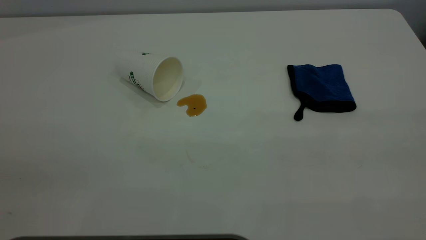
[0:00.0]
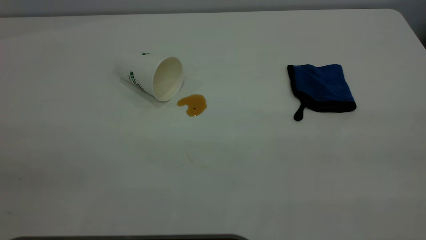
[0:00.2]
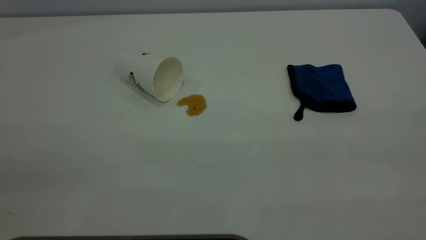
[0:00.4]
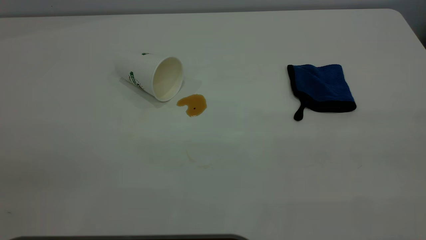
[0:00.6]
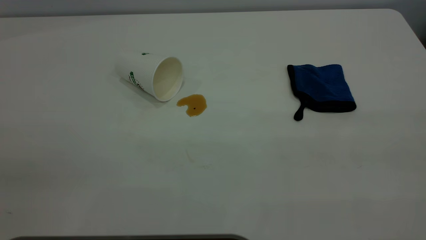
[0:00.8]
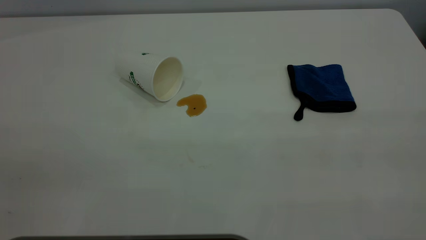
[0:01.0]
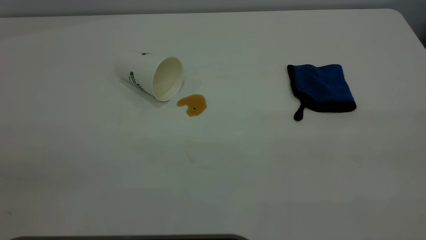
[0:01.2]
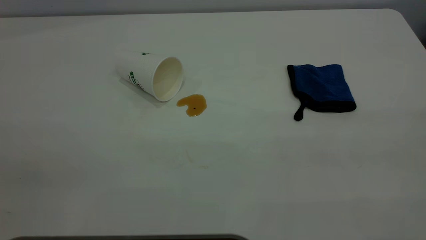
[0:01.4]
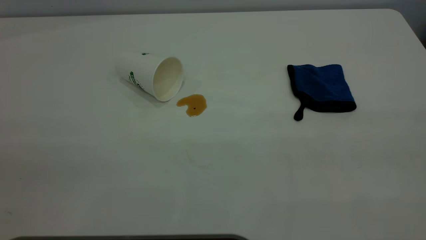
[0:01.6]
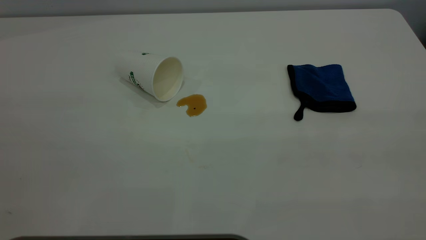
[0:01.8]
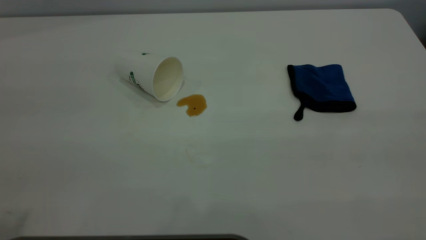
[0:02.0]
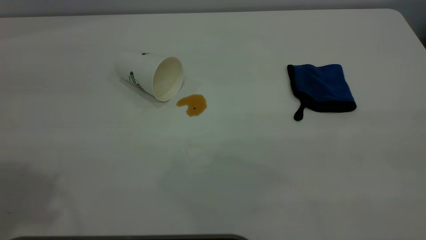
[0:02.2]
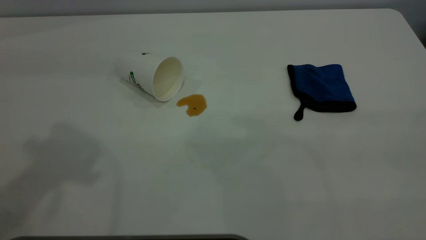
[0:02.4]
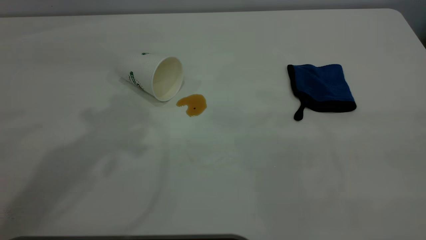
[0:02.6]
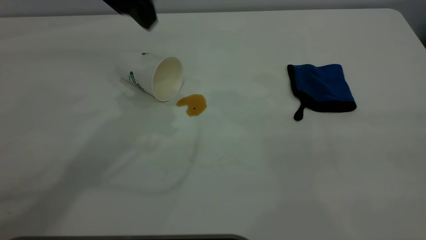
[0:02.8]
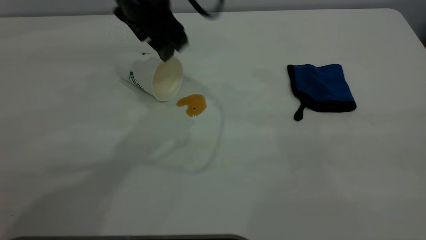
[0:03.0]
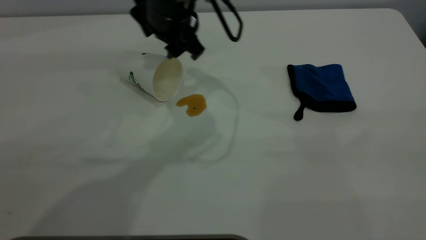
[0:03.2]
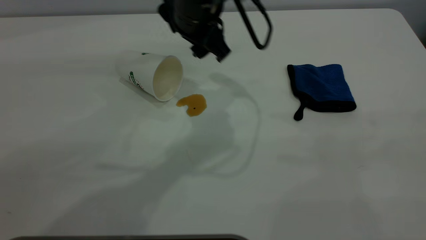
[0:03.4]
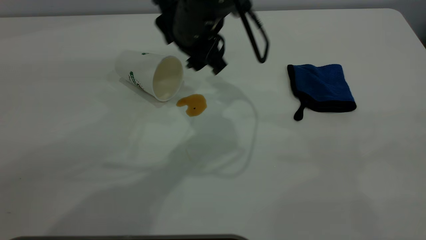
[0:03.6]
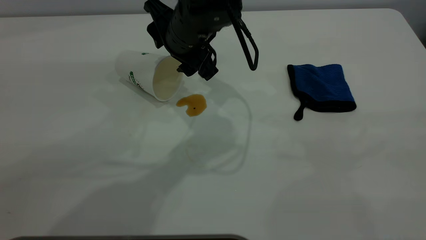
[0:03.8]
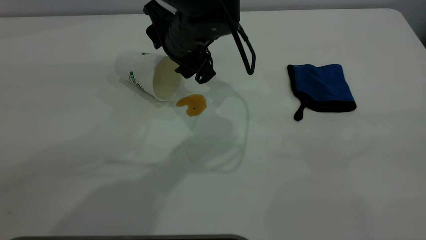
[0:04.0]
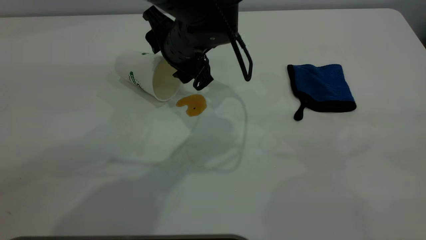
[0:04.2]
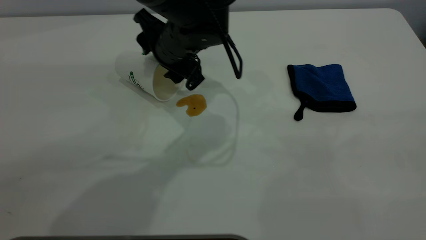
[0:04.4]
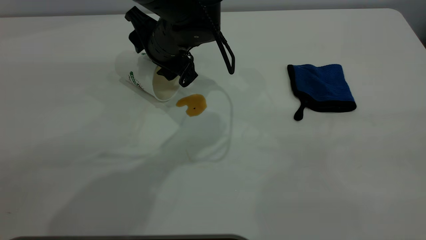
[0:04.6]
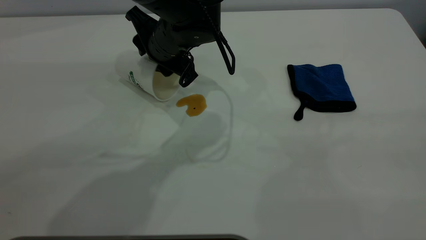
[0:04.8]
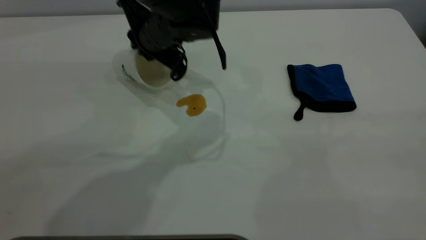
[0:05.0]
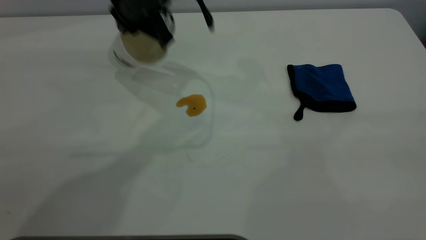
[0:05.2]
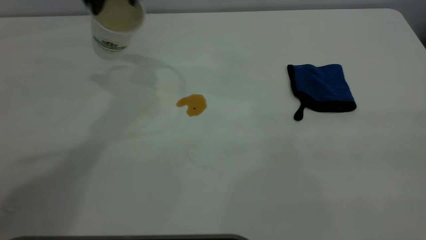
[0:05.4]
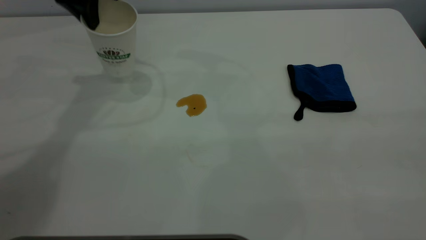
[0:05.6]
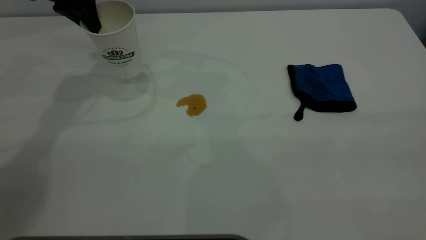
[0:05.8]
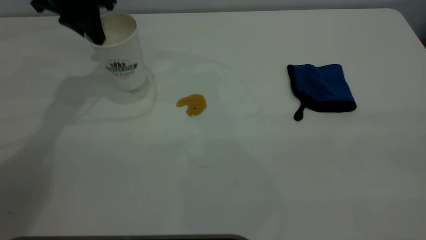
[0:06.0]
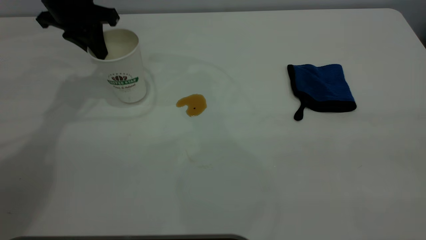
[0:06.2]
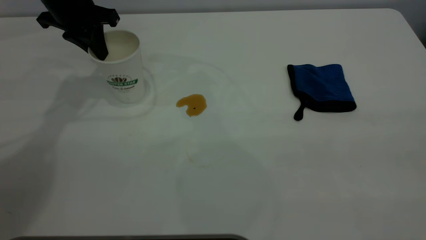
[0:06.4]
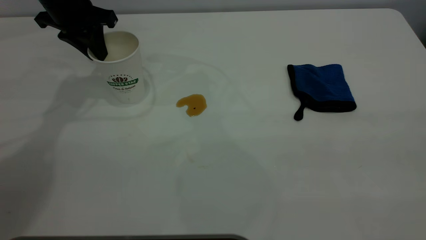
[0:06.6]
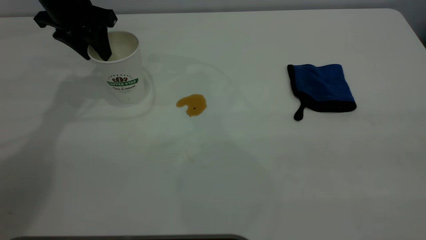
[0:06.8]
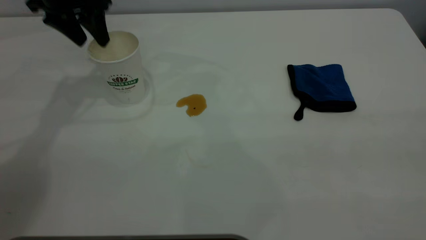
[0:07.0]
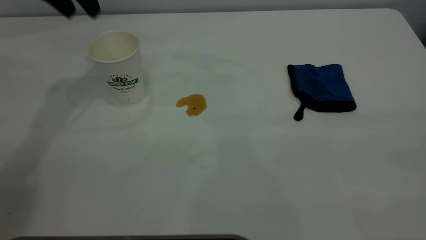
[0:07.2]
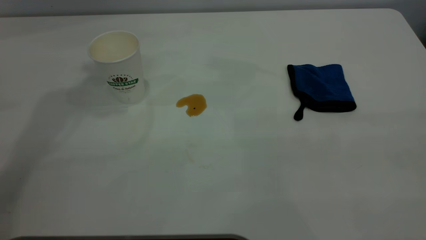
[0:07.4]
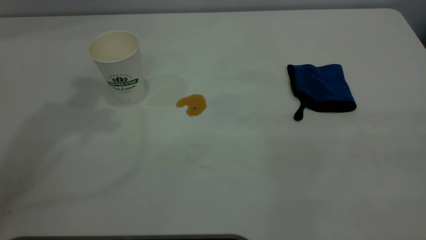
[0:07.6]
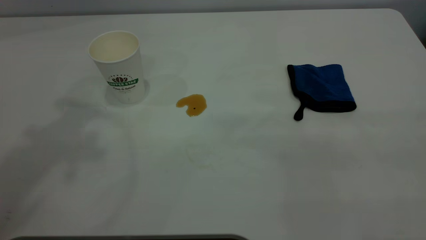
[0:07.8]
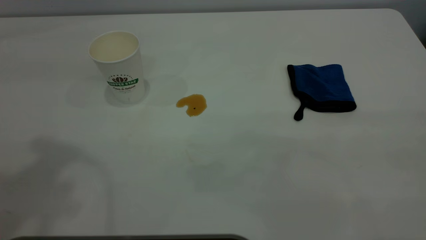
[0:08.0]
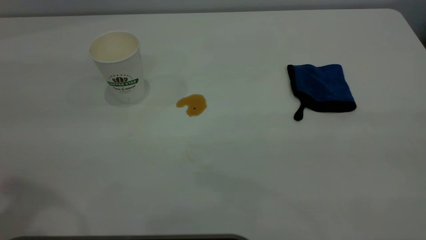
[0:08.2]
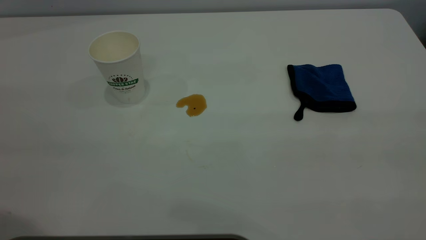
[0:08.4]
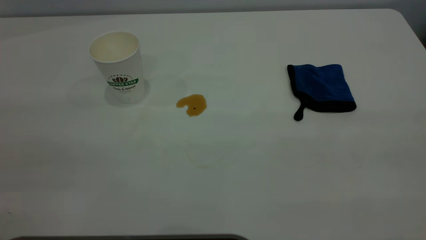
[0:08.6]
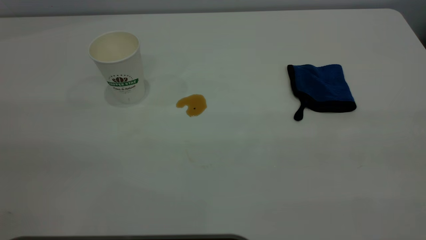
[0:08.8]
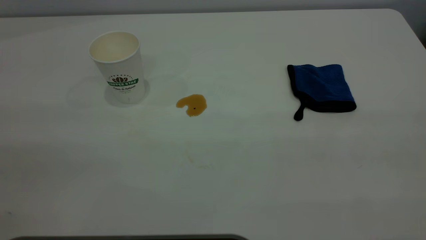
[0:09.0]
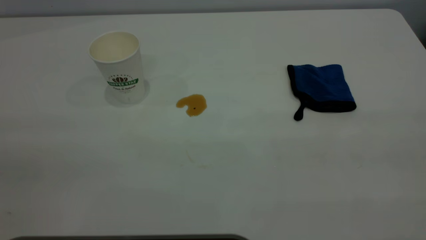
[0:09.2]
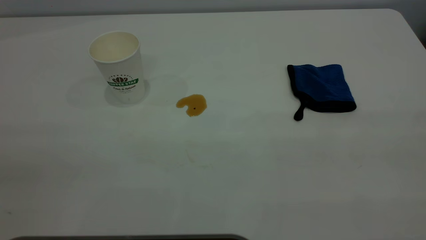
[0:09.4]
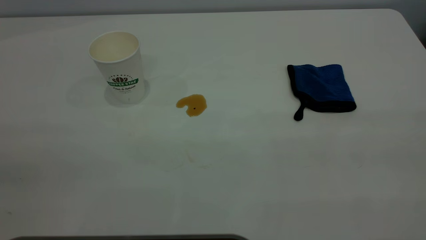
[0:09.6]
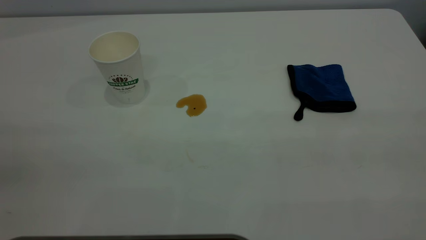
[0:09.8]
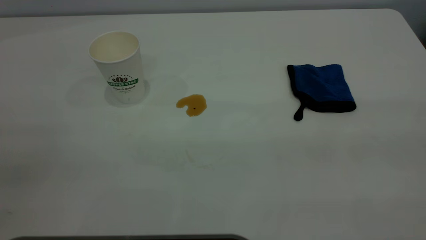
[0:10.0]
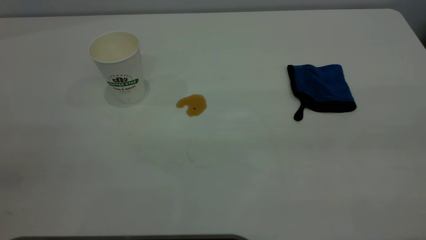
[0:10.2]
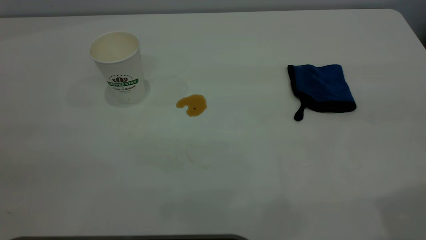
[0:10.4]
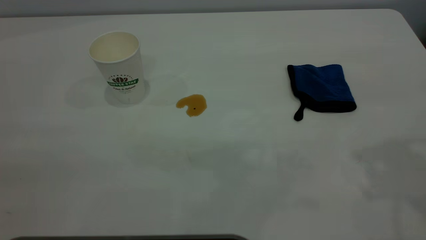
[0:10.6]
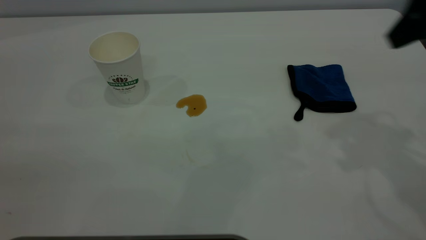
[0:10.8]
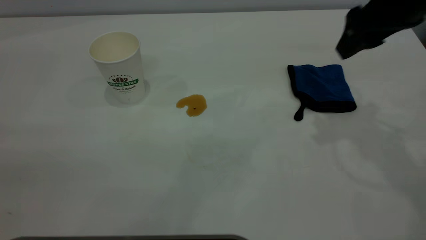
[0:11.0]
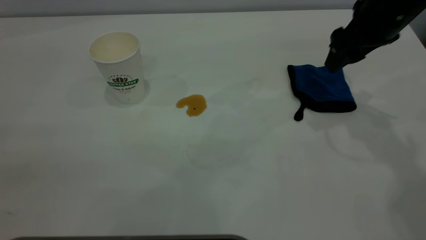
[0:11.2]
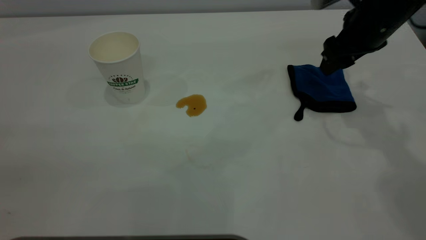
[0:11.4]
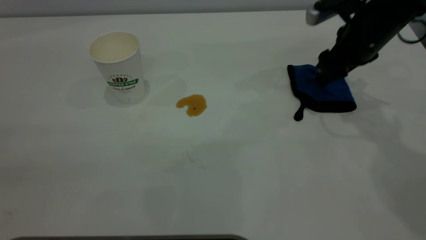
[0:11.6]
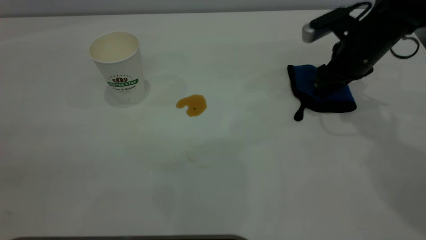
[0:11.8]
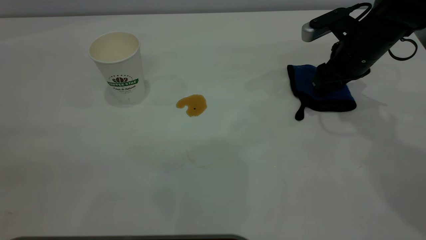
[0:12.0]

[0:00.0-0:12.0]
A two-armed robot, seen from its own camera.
Task of the whole recording: the left gripper pick up the fallen cup and place it upright, the right gripper grasp the blue rag and wipe the tea stain on the table, the right gripper put the blue rag back in its original position.
Step, 0:00.0 to 0:07.0: Stand the paper cup upright.
0:01.6 to 0:03.0: The left gripper goes roughly 50 cm forward, to the right and downward.
0:03.0 to 0:04.4: The left gripper goes roughly 10 cm downward.
0:04.4 to 0:06.0: The left gripper moves to the left and upward, about 20 cm, and closes.
0:06.0 to 0:07.6: The left gripper travels upward and backward by about 30 cm, and opens.
0:10.4 to 0:12.0: The right gripper is displaced forward and downward by approximately 35 cm.

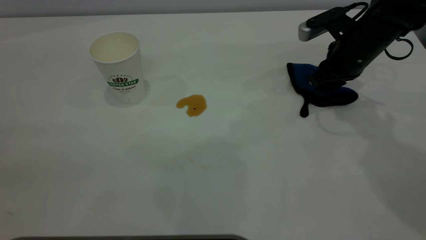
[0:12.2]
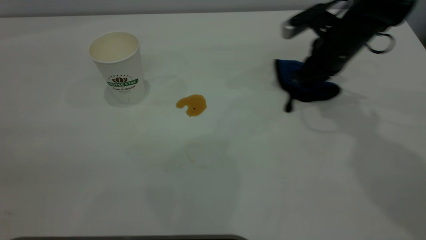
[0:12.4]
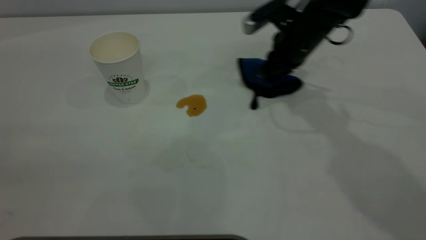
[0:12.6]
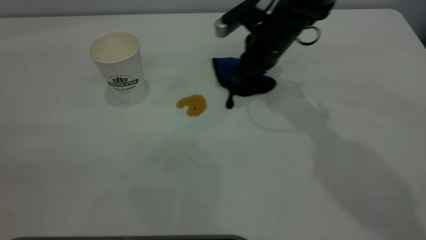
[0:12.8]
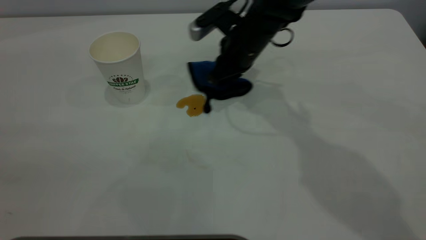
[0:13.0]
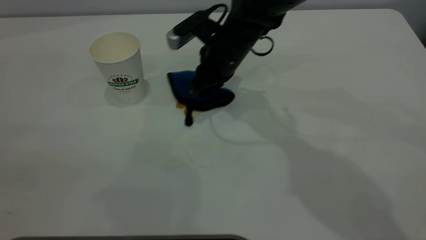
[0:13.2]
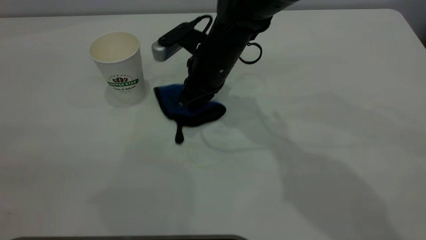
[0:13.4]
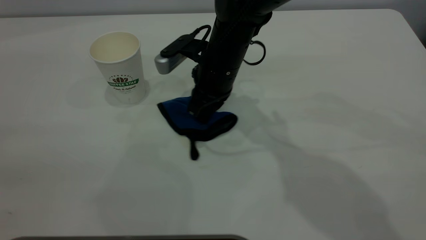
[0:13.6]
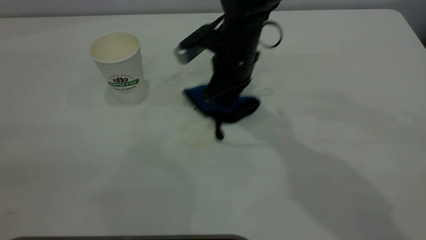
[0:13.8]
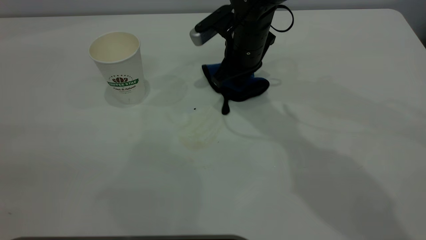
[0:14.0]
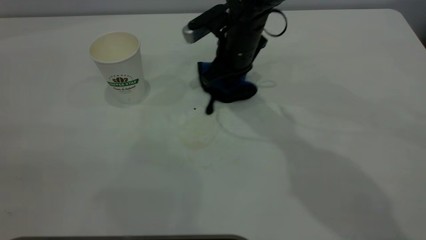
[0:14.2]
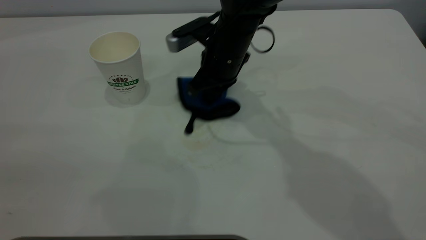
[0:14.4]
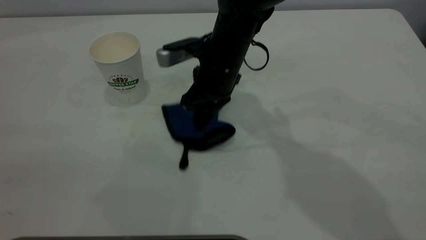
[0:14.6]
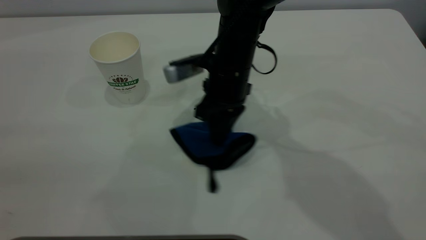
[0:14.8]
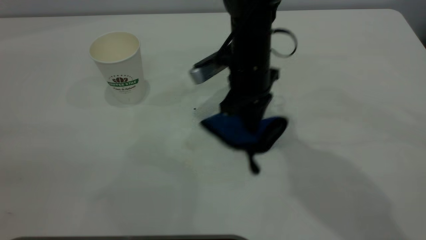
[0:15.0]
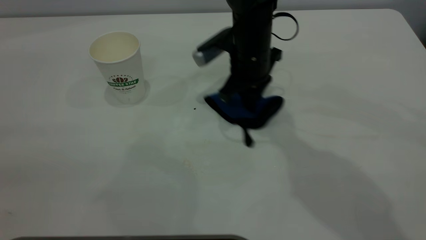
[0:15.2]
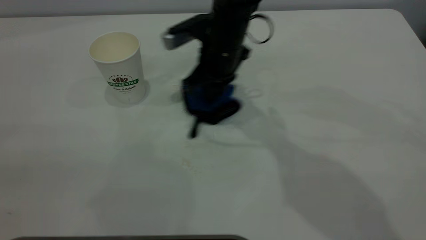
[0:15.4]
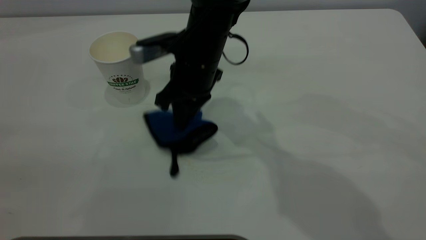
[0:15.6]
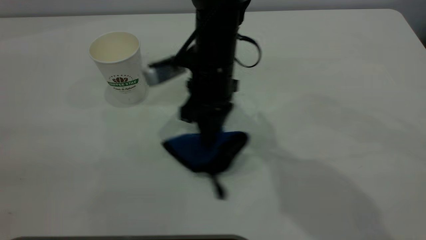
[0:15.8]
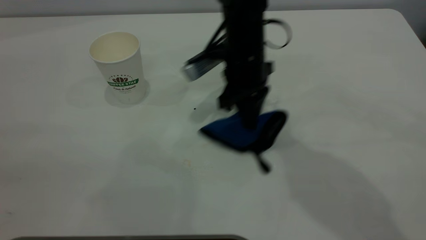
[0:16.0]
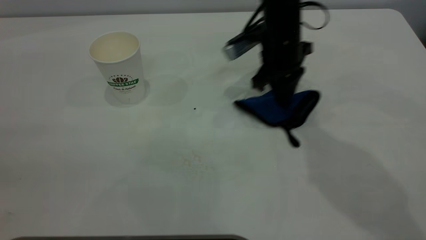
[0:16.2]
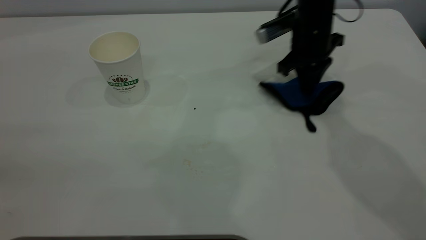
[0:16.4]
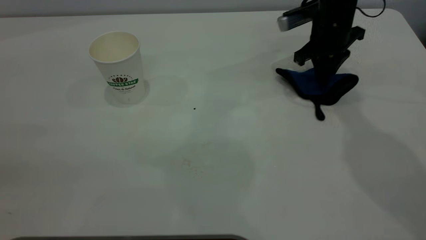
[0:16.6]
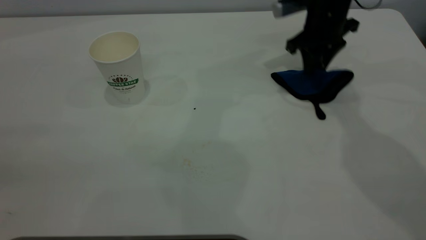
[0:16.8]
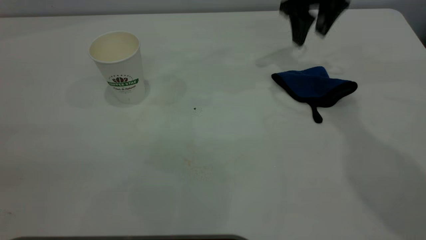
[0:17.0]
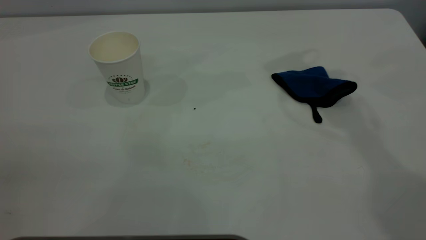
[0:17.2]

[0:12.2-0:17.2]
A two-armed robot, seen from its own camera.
Task of the whole recording: the left gripper pick up the fallen cup and place it upright, the right gripper grasp the blue rag and wipe the tea stain on the table, the right gripper put the blue rag back in its original position.
Step, 0:12.2 to 0:16.8: Wipe the stains off the table with a rag.
0:12.2 to 0:13.8: The right gripper heads to the left, covering some 20 cm.
0:13.8 to 0:15.6: The right gripper travels to the left by about 5 cm.
0:15.6 to 0:17.2: The right gripper travels upward and to the right by about 30 cm, and opens up.
